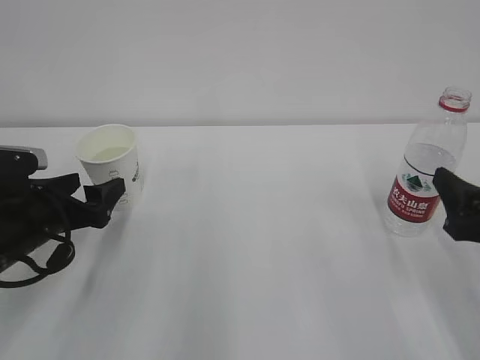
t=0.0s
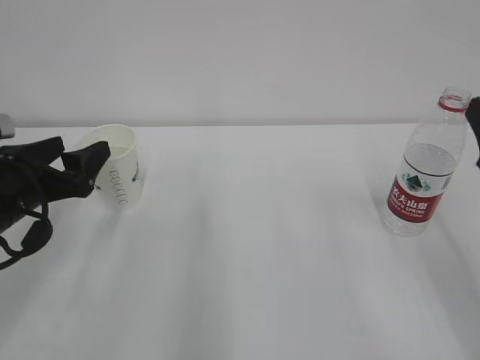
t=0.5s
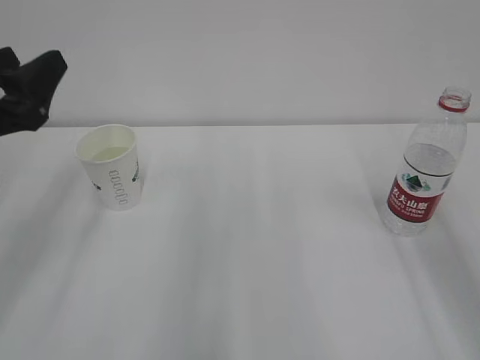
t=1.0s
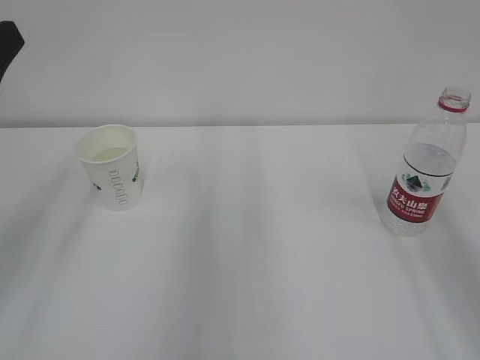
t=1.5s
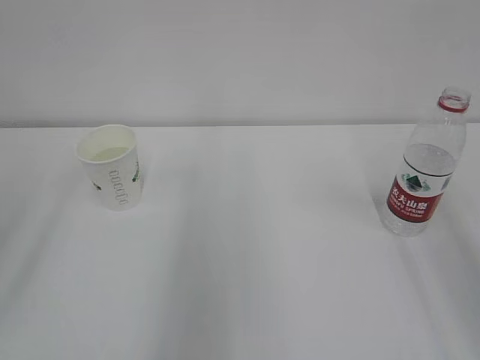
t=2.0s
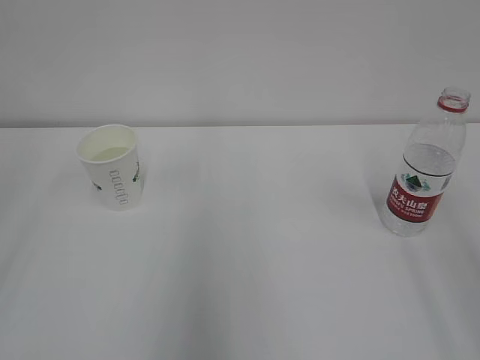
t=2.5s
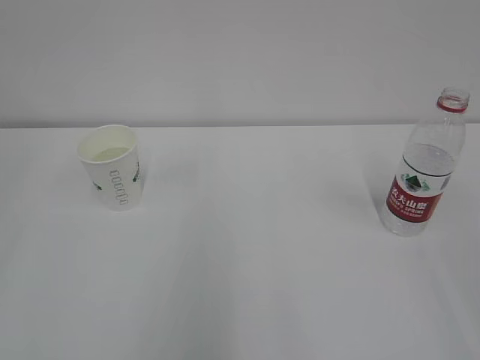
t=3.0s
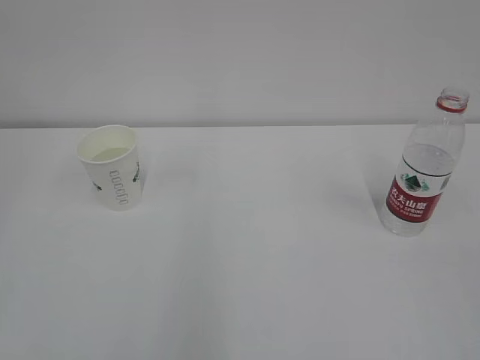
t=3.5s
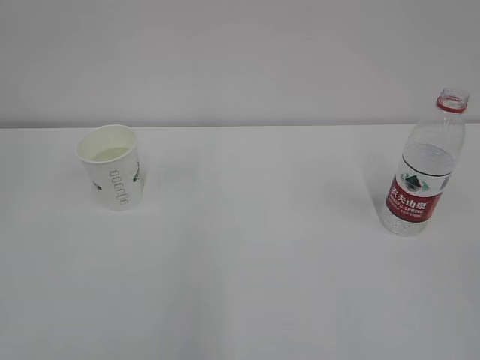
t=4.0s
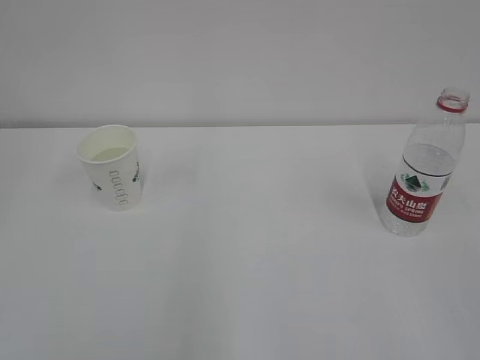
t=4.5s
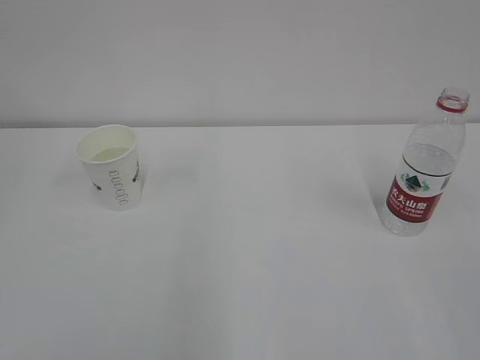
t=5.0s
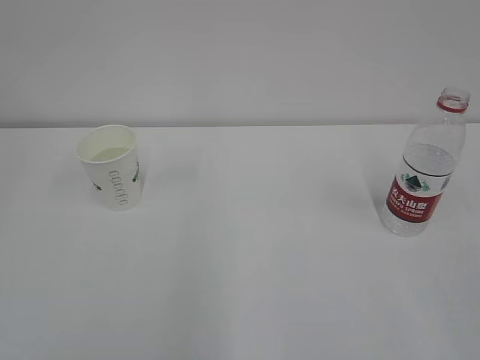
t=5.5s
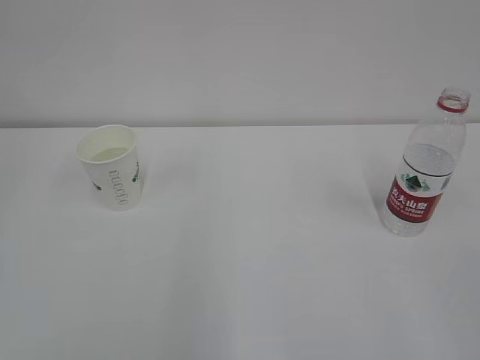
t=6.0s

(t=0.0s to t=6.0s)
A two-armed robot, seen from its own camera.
t=0.0s - t=2.0s: The right gripper travels upward by some 25 cm; the left gripper goes roughly 25 cm upward and backward, and closes.

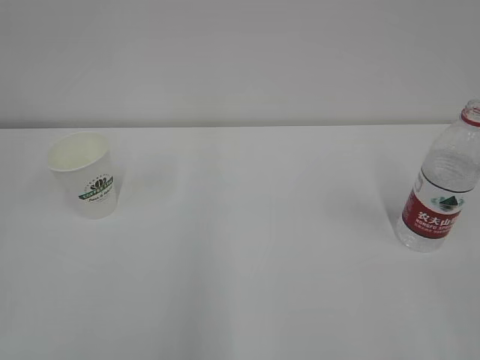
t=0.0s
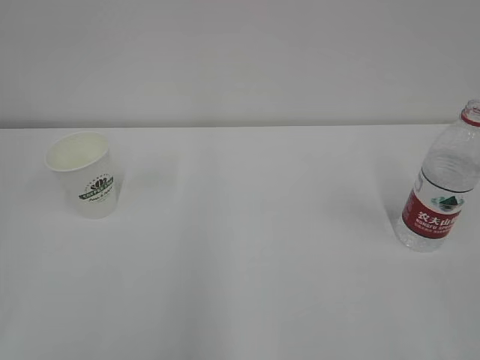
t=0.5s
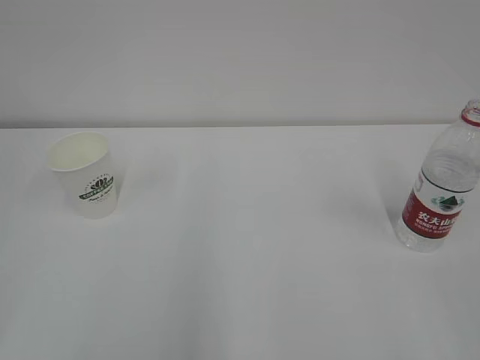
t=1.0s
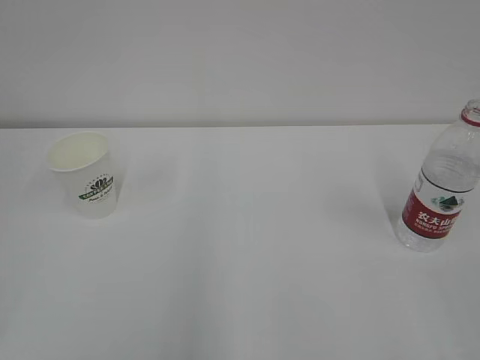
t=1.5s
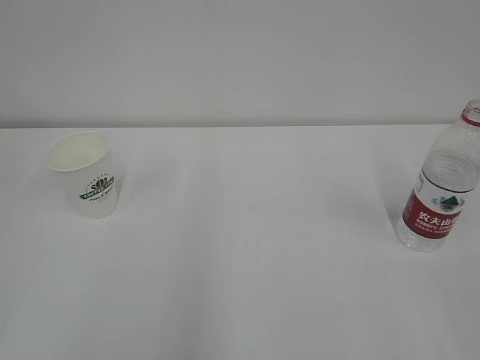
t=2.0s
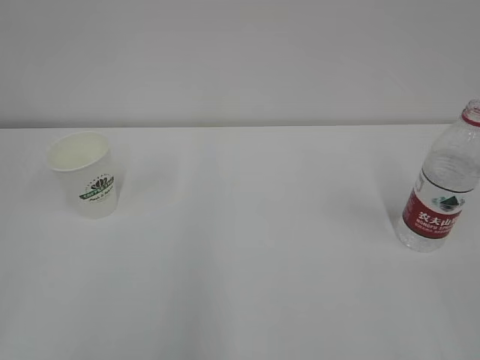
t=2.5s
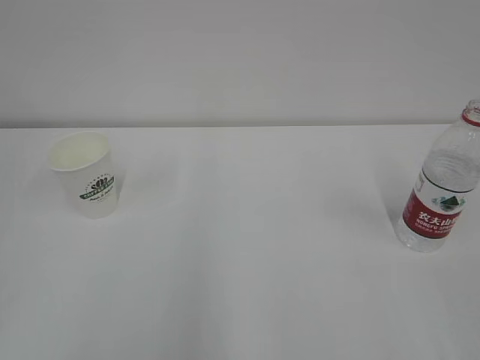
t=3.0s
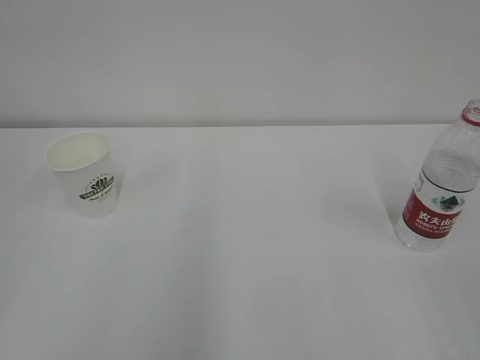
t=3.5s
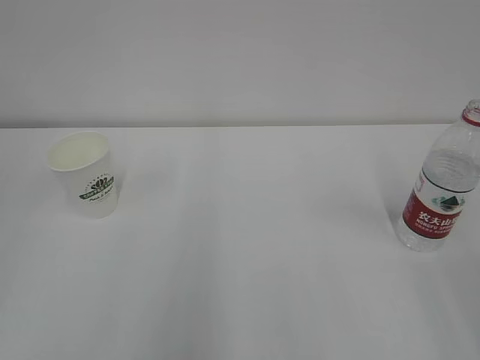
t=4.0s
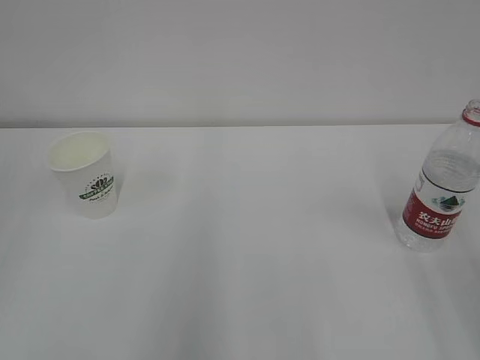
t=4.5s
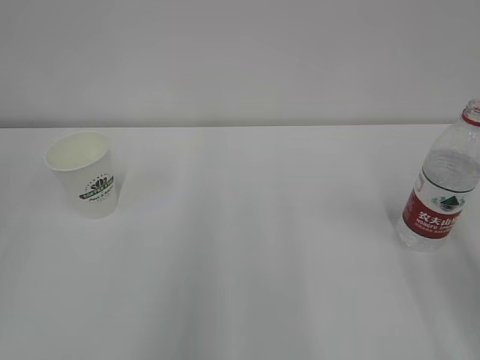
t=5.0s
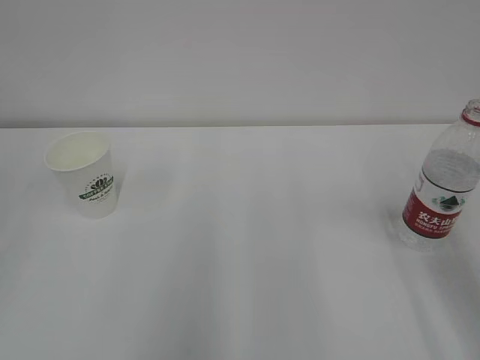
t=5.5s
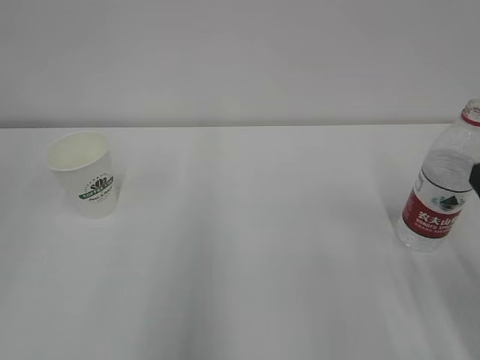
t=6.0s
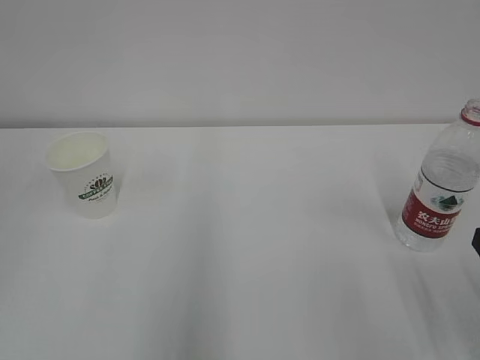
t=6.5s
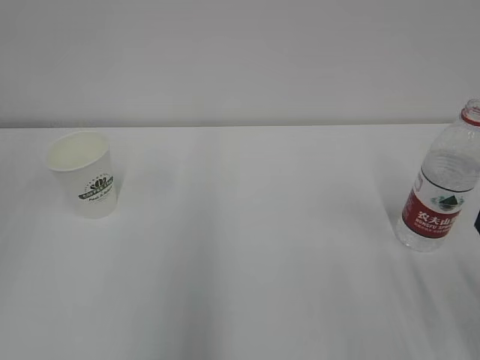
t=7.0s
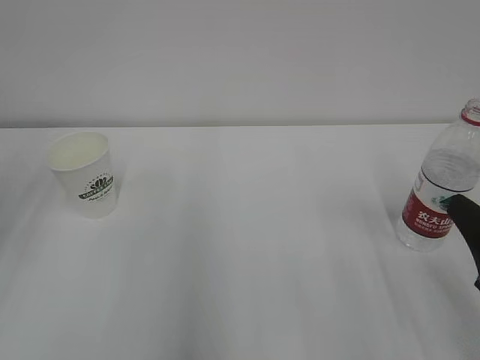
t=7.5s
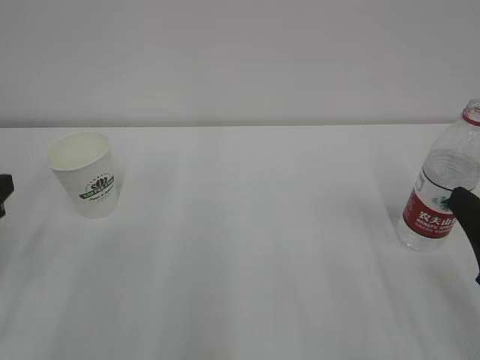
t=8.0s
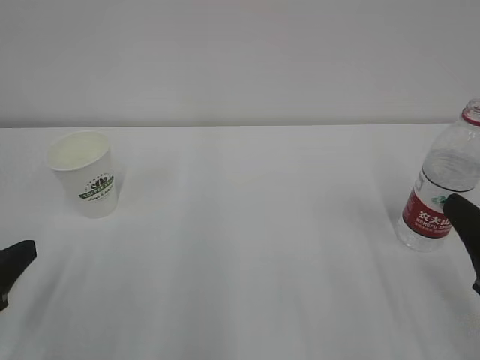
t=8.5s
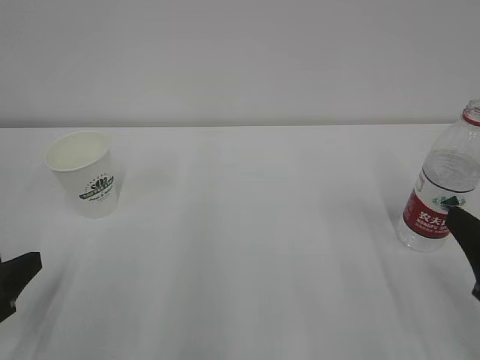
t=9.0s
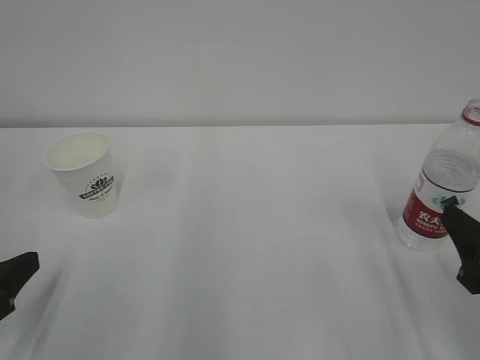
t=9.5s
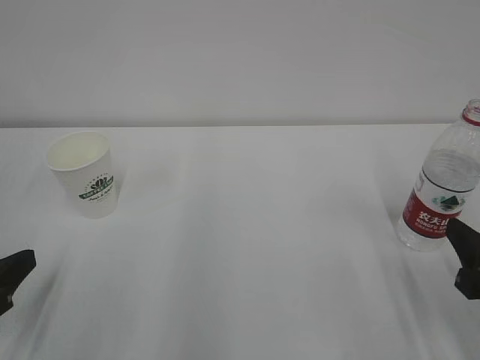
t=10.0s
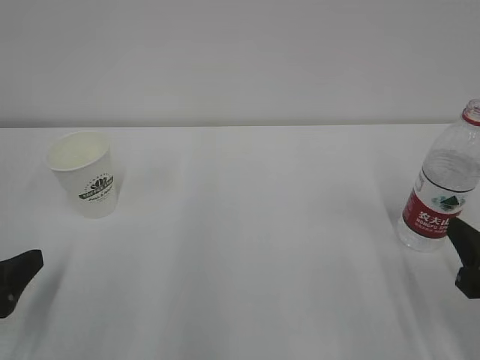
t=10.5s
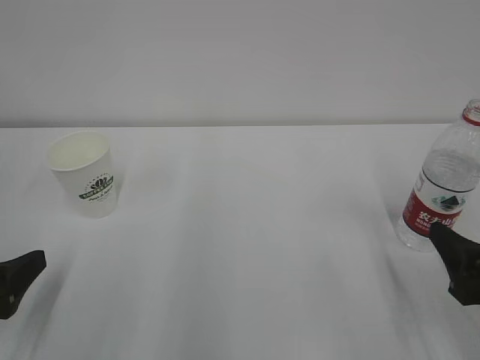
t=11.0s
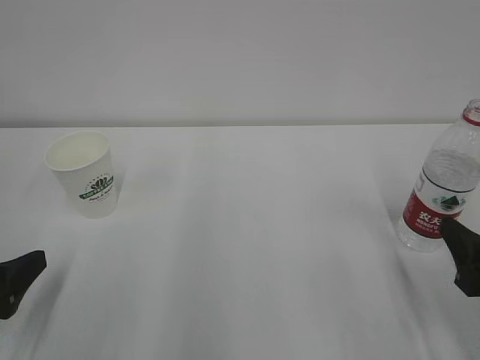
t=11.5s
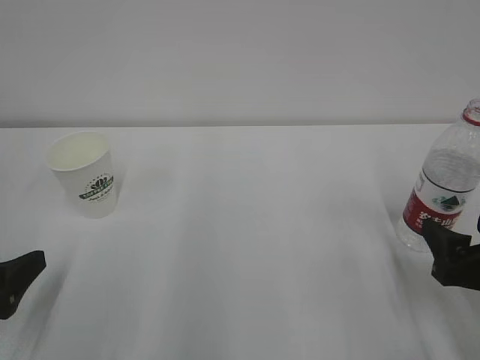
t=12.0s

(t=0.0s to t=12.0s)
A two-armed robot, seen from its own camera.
t=8.0s - t=10.0s: The right gripper moves about 5 cm; the left gripper is displaced backward by roughly 5 cm.
t=10.0s - t=12.0s: The right gripper opens.

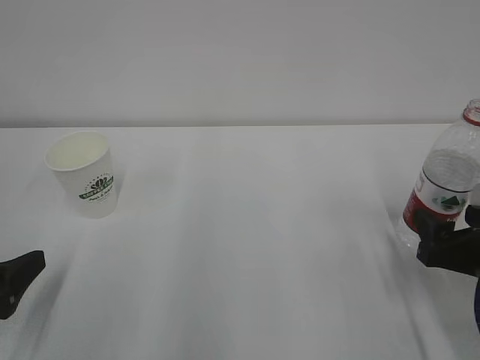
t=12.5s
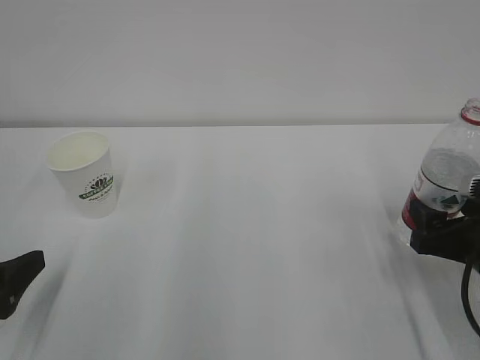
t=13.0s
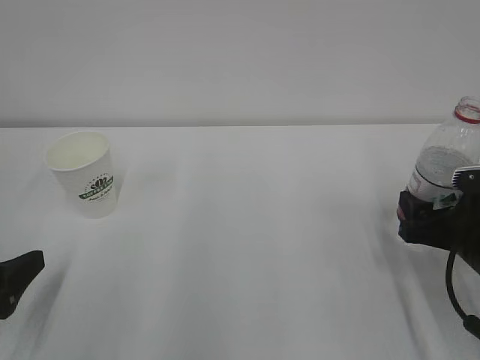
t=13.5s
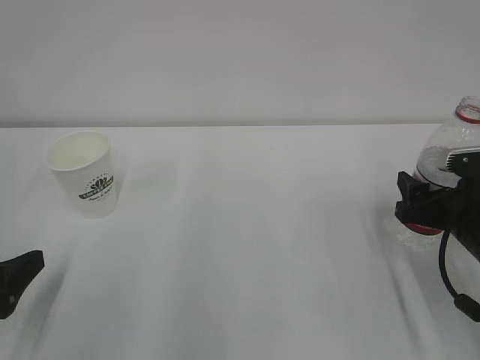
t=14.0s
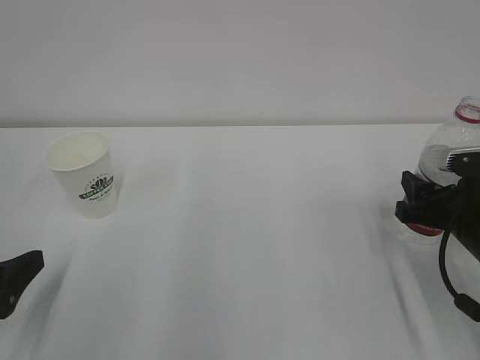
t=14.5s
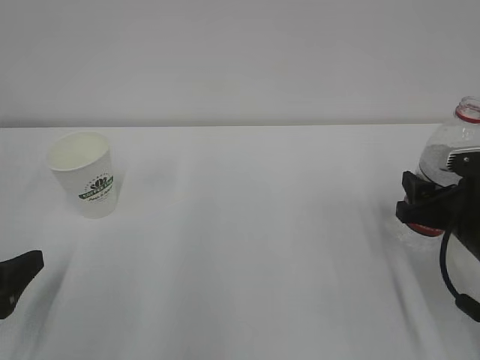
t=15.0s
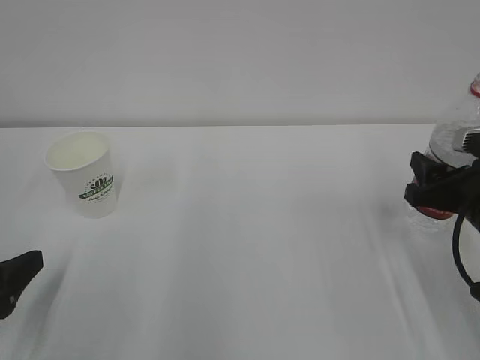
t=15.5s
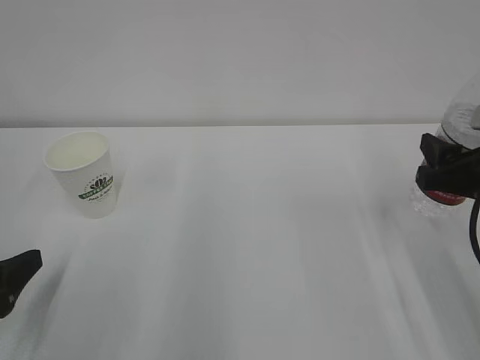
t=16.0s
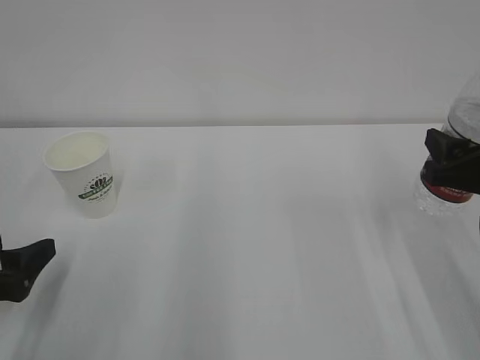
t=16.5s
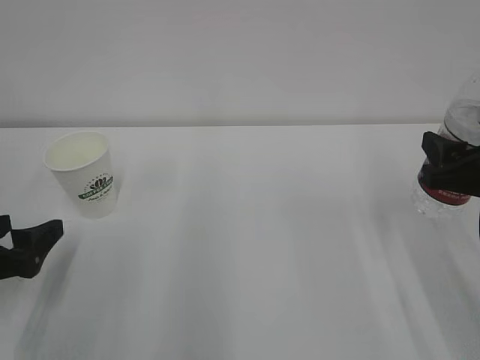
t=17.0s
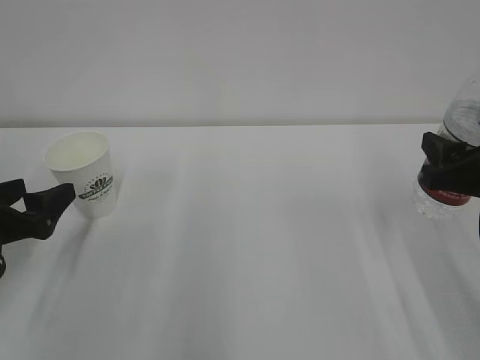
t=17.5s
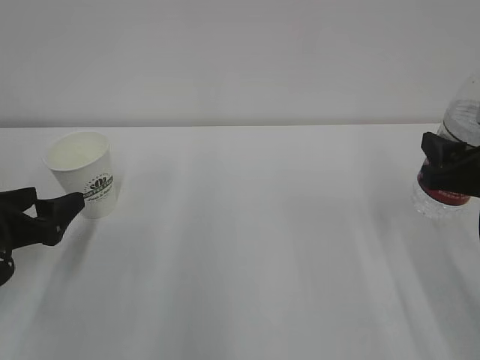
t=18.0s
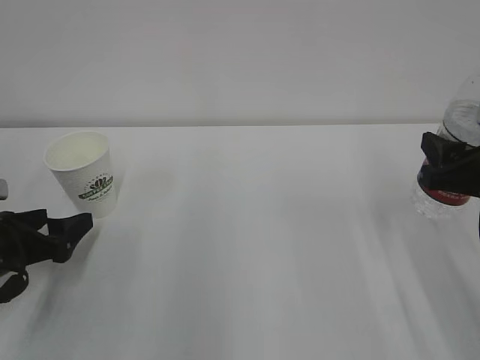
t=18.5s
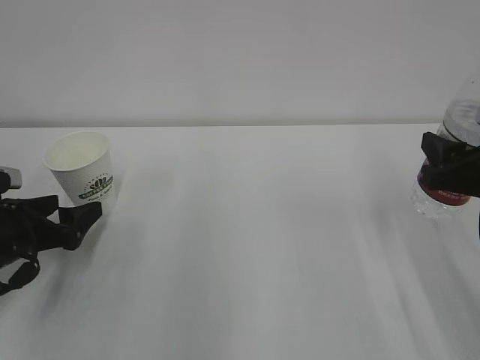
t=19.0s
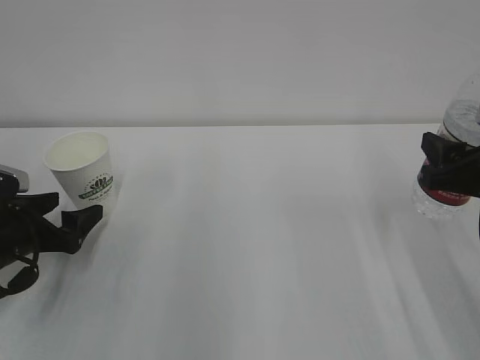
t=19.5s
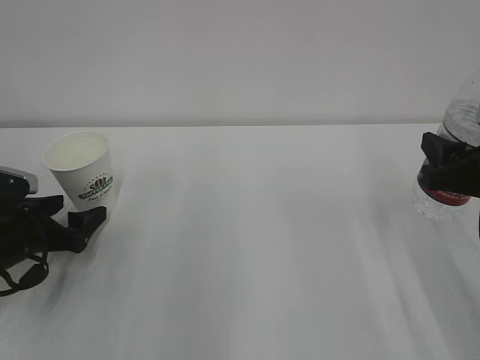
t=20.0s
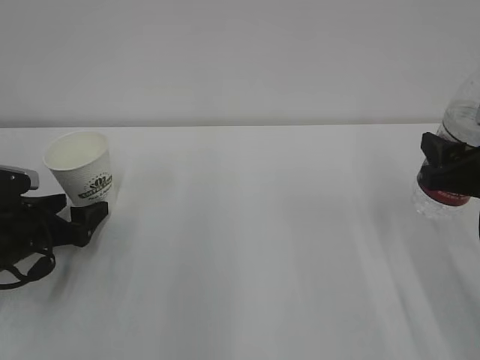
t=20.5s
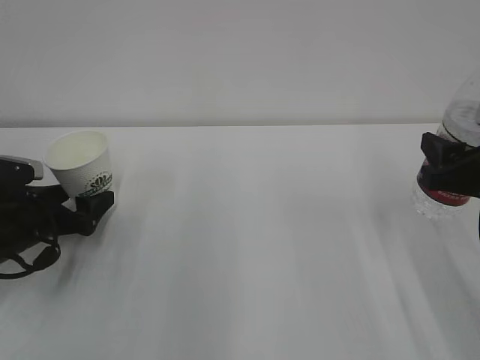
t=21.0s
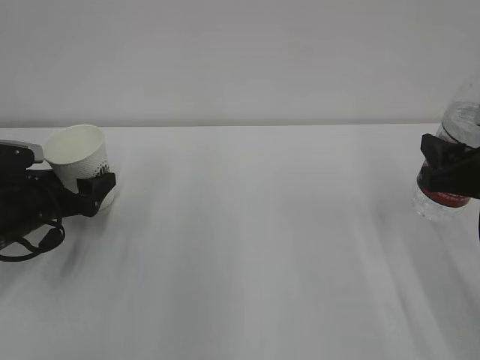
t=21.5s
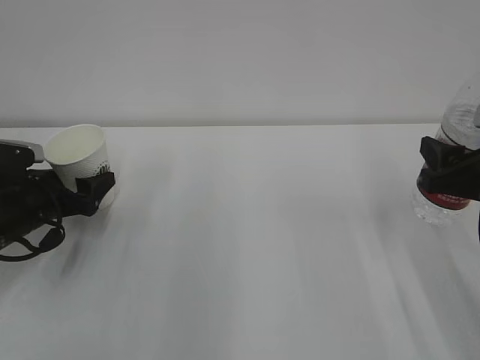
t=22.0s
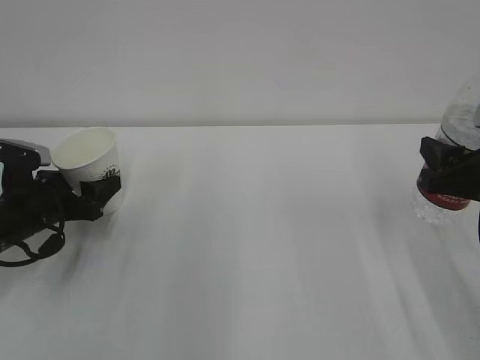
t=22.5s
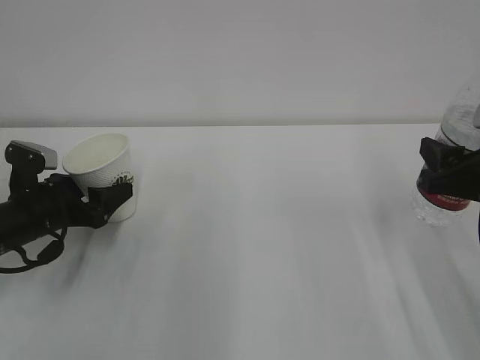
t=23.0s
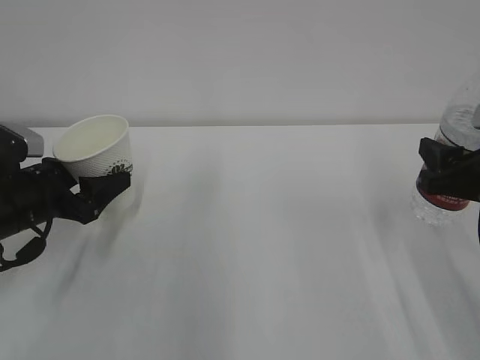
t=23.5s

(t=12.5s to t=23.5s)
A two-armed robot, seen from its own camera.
t=12.5s - t=14.5s: The right gripper moves forward, about 5 cm, and closes up.
t=14.5s - t=16.0s: The right gripper heads upward, covering some 5 cm.
t=16.0s - t=18.0s: The left gripper moves forward, roughly 10 cm, and opens its fingers.
t=18.0s - t=20.0s: The left gripper changes place by some 5 cm.
t=20.0s - t=21.5s: The grippers move only a little.
t=21.5s - t=23.5s: The left gripper shifts by about 5 cm, and closes its fingers.
